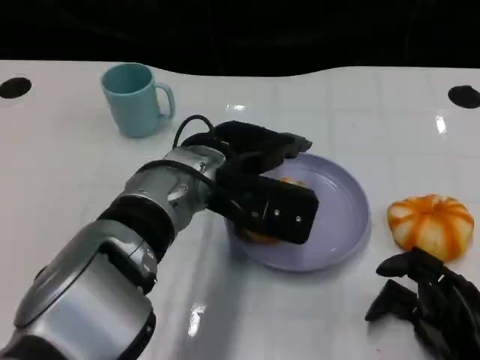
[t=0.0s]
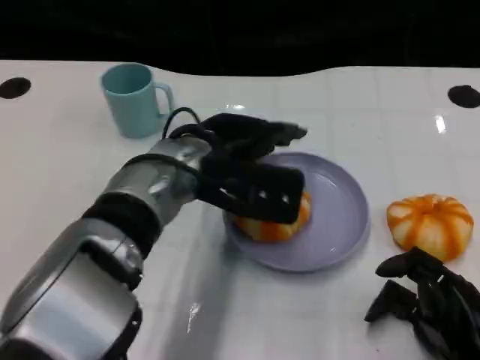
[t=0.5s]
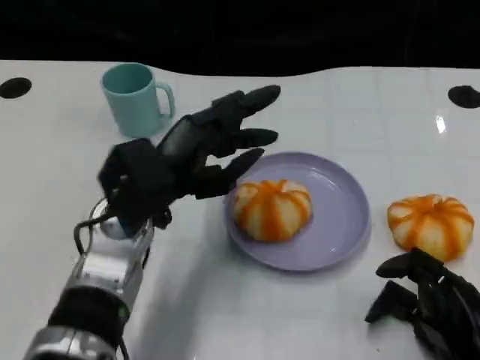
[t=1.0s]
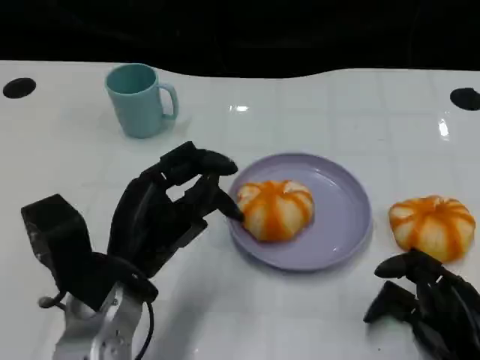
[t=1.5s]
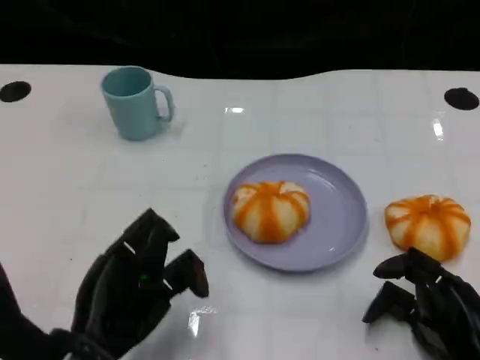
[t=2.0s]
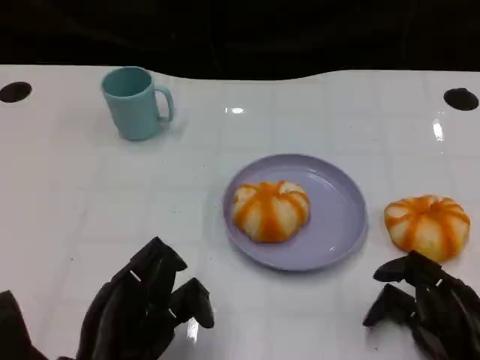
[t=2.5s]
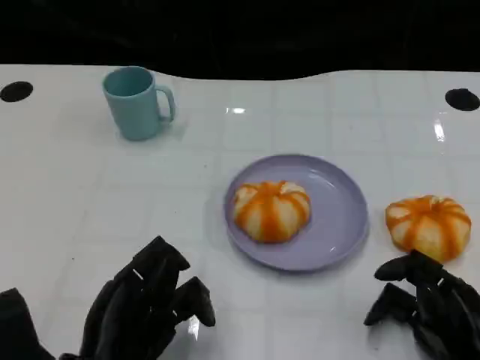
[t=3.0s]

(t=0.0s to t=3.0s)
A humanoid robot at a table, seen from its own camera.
Task of the whole recording: Grasp the bread from the table and place it into the plate.
t=0.0s - t=1.5s: The left hand travels to the left and backward by approximately 15 cm.
t=1.5s - t=3.0s: The left hand is displaced backward by about 5 cm.

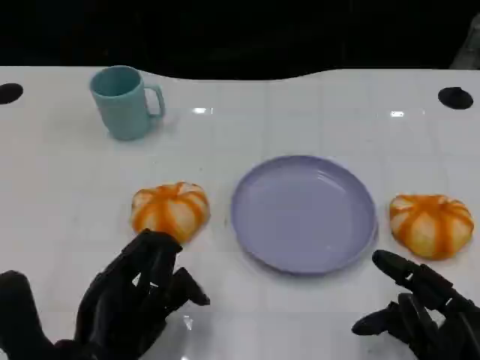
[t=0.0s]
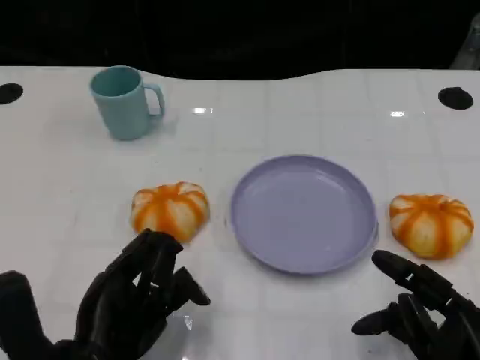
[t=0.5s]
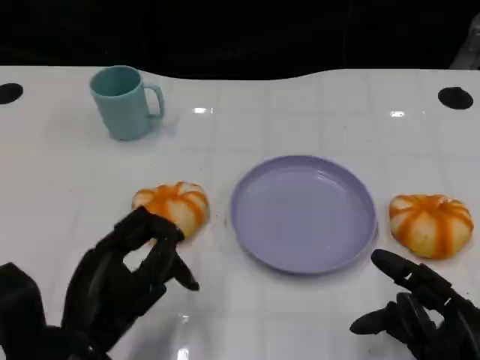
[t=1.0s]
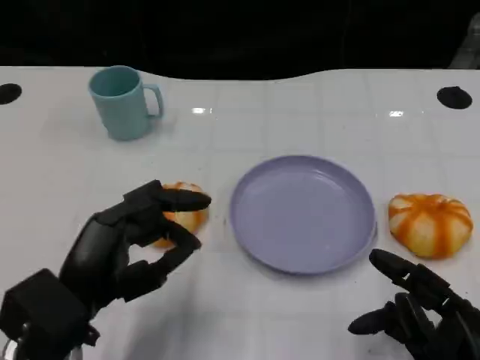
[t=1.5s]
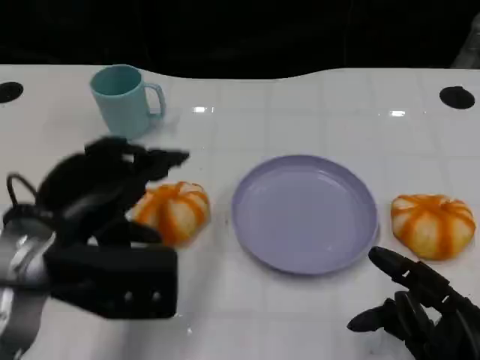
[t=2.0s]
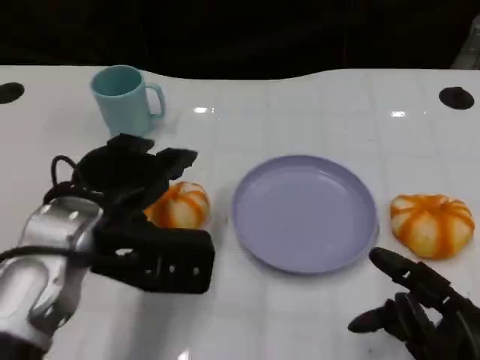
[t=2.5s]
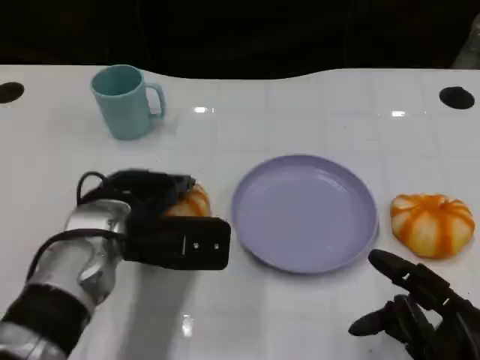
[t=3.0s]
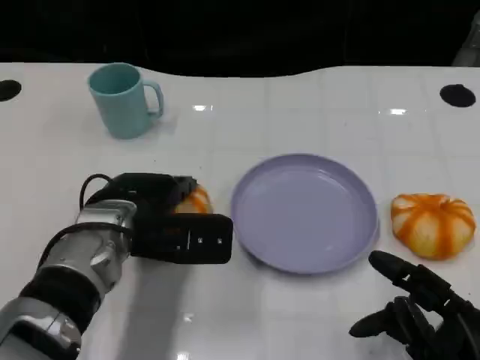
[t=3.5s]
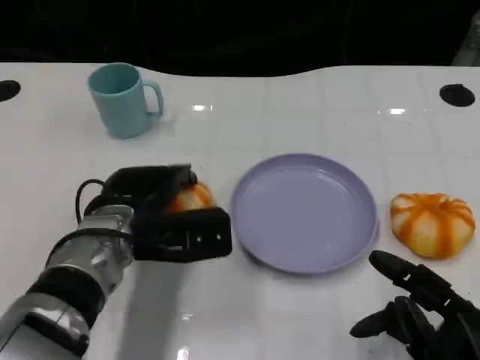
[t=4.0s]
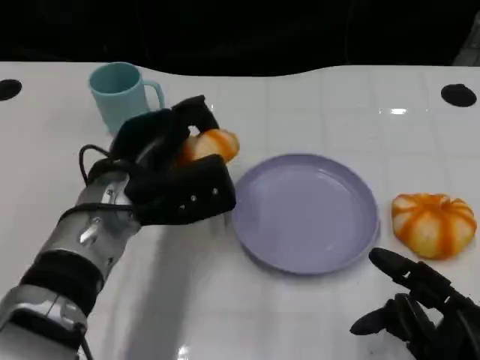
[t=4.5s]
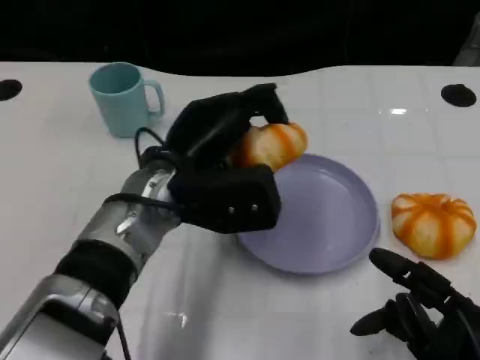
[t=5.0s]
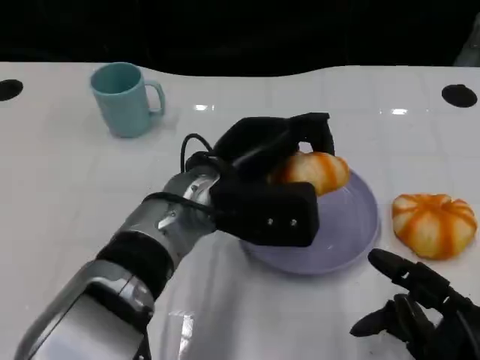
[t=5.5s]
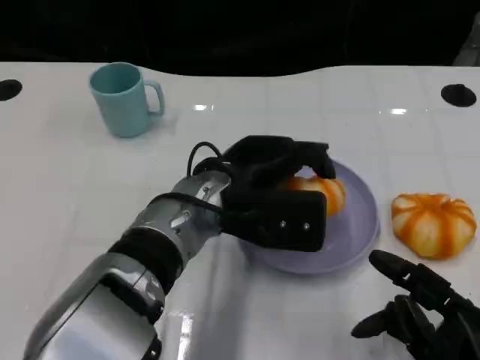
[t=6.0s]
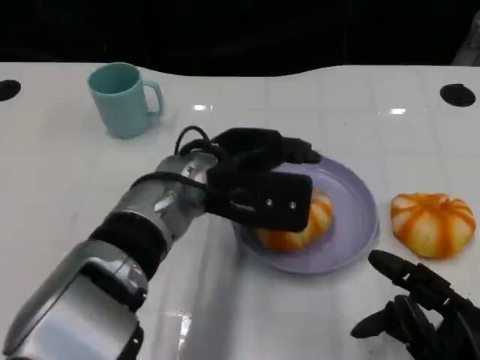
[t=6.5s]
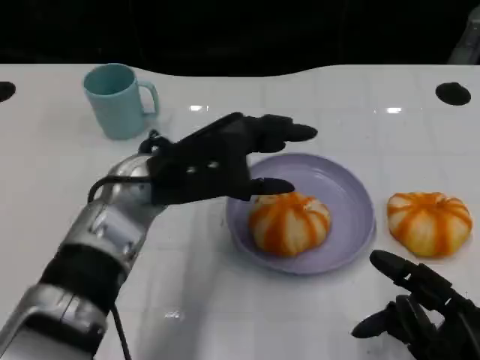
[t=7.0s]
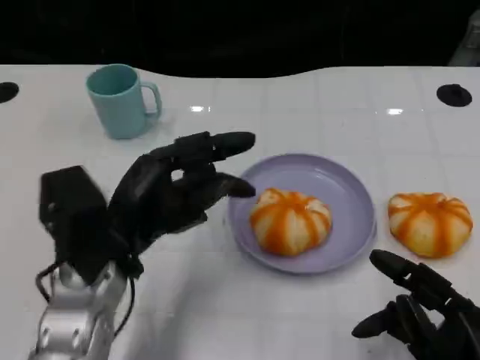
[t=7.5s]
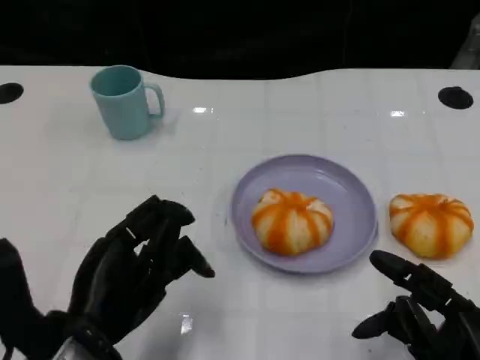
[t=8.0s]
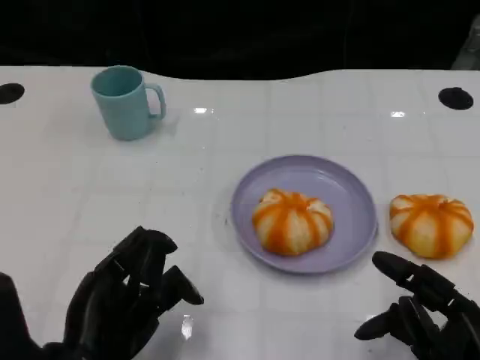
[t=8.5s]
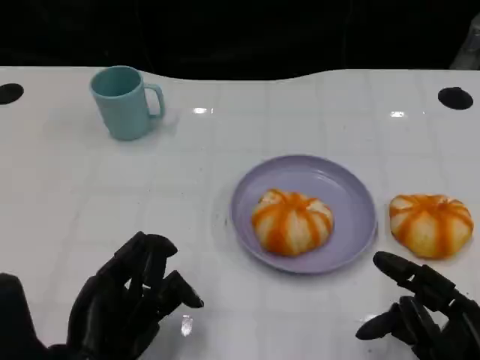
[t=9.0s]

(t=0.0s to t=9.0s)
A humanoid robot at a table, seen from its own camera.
Task of the whole recording: Grasp the bread from the table and place it into the plate.
t=0.0s - t=2.0s: The left hand moves upward and forward, about 10 cm.
t=2.0s - t=4.5s: The left hand travels forward and to the right by approximately 10 cm.
t=4.5s - t=7.0s: The left hand goes to the right and returns, about 10 cm each way.
t=7.0s - t=9.0s: The left hand shifts roughly 20 cm backward, downward and to the left.

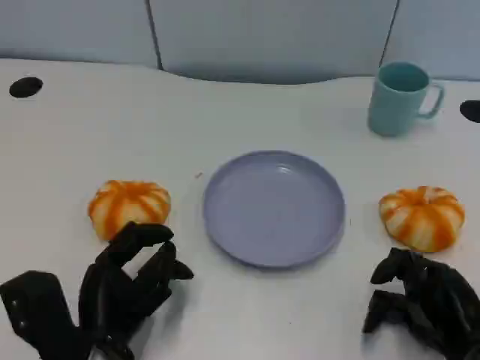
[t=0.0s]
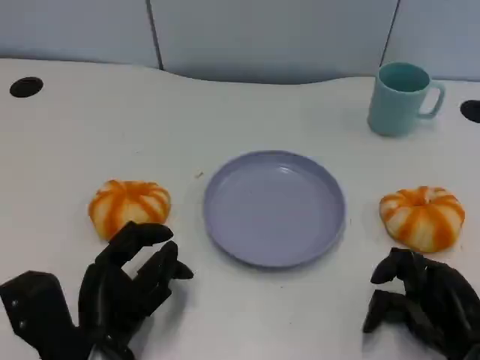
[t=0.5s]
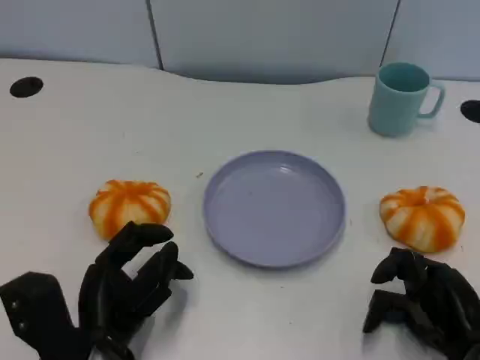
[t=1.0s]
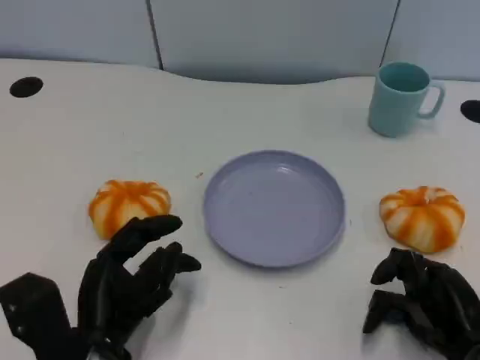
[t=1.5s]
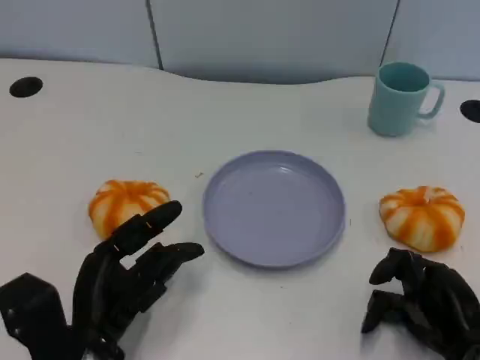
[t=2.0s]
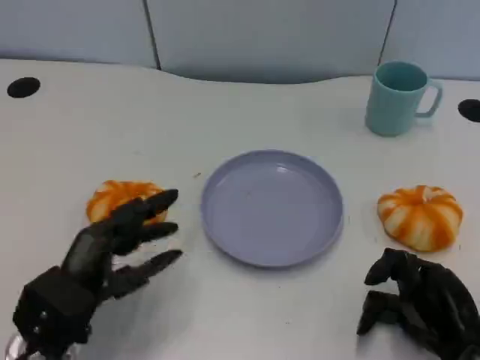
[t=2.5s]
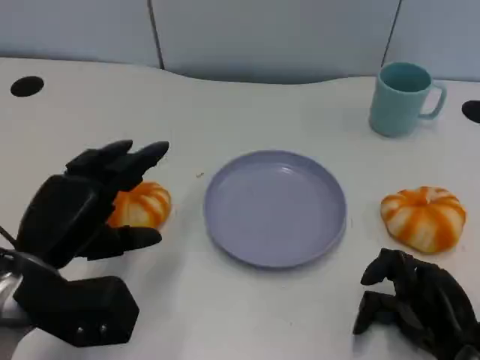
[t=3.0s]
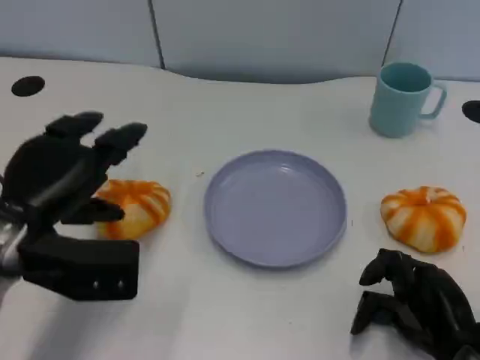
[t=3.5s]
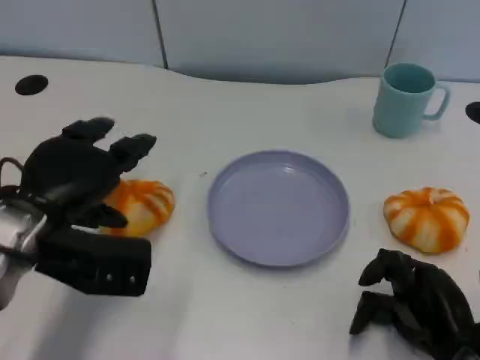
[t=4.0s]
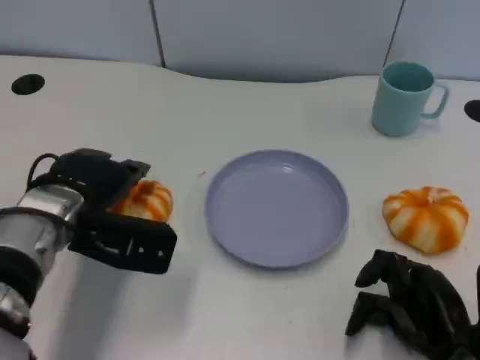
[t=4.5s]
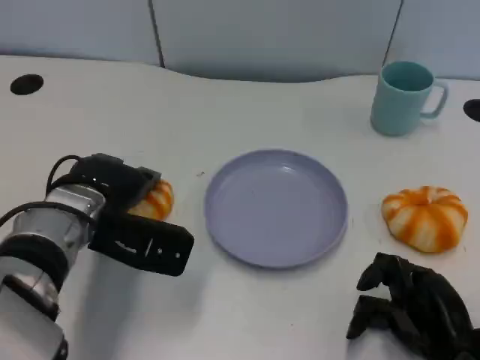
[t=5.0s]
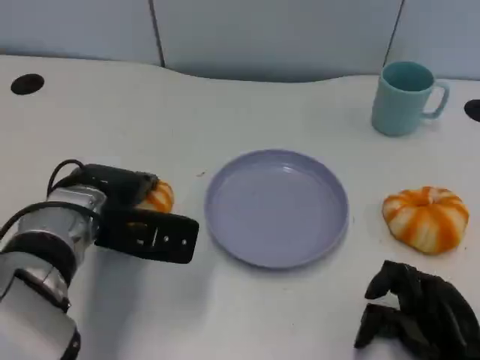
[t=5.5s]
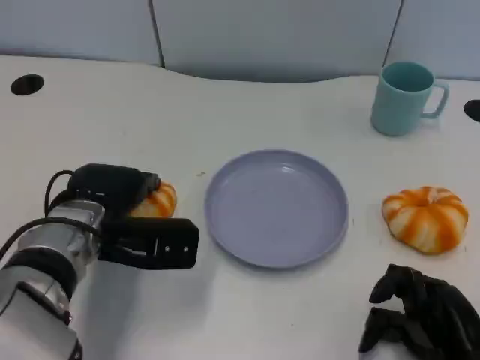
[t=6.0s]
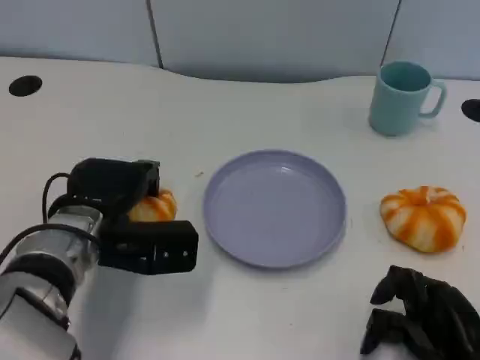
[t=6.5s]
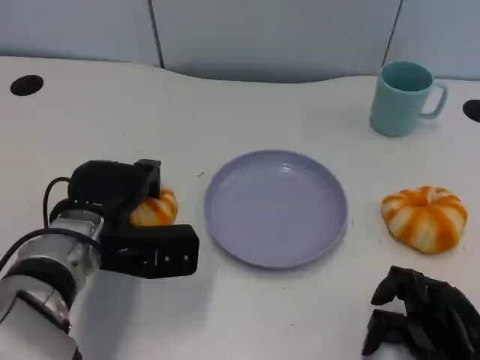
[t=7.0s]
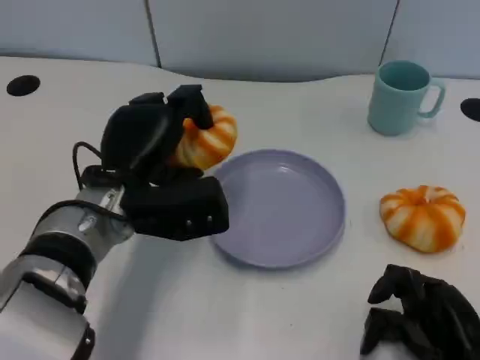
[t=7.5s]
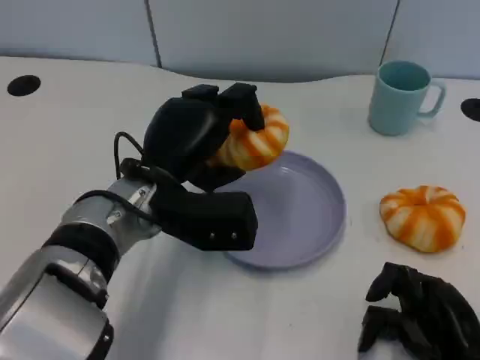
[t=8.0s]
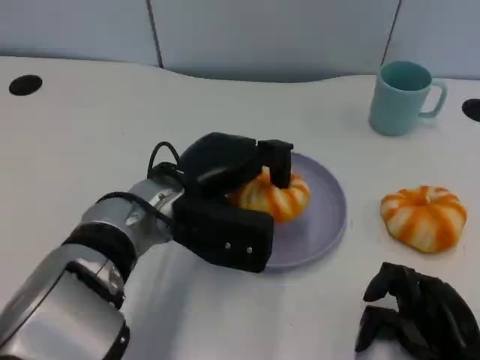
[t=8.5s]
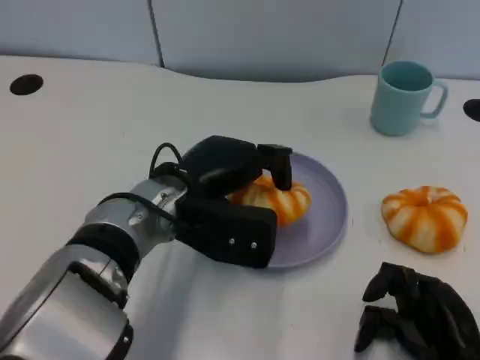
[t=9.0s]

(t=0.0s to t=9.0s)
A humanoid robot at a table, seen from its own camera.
Task of the whole recording: Grasp the bread from the table and place it into the plate.
t=0.0s - t=2.0s: There are only small adjustments of the hands.
t=2.0s - t=4.5s: The left hand travels forward and upward by some 15 cm.
t=4.5s - t=7.0s: The hands move only a little.
t=7.0s - t=9.0s: The left hand is displaced to the right by roughly 10 cm.

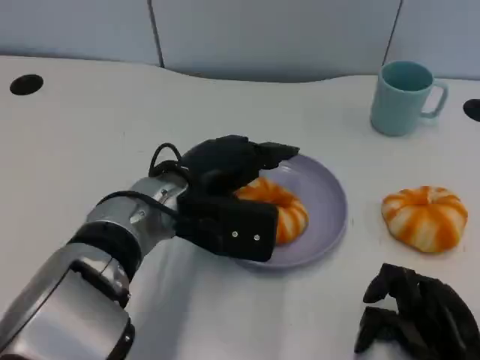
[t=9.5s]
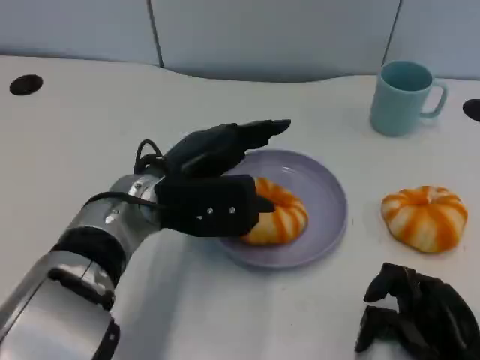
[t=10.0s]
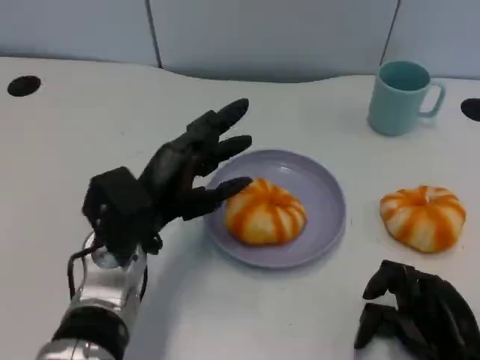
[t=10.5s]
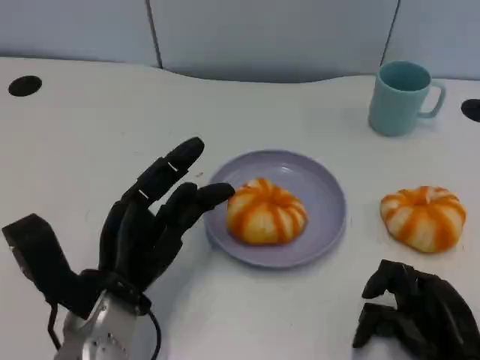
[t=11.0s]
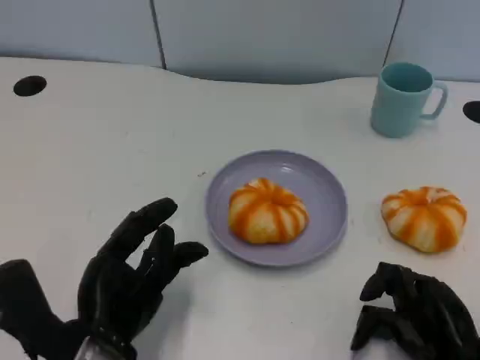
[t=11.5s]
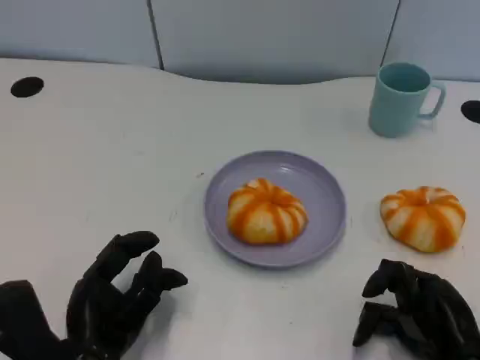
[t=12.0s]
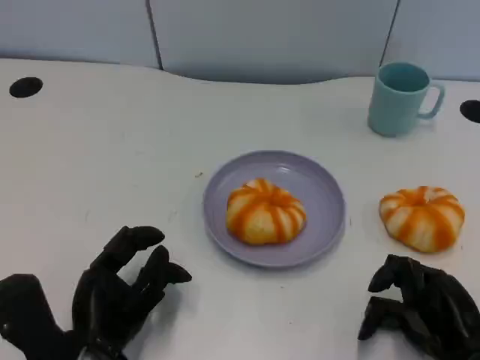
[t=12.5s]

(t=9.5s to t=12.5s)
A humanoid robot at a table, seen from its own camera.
Task of the whole recording: Grasp the bread from the table and place it into the plate.
t=9.5s - t=11.0s: The left hand is displaced backward, to the left and downward by approximately 10 cm.
t=11.0s - t=12.5s: The left hand shifts by roughly 5 cm.

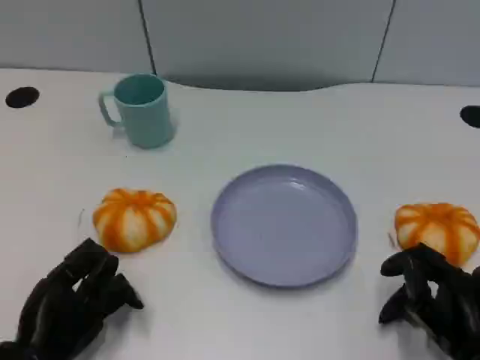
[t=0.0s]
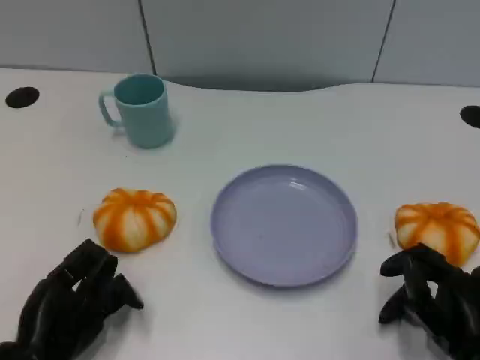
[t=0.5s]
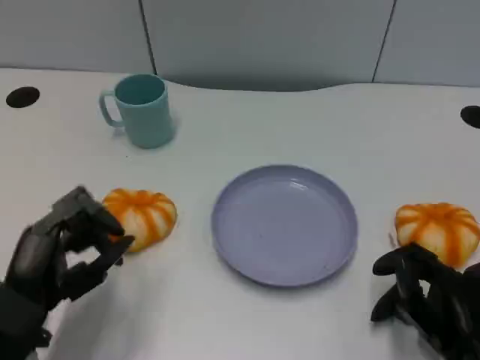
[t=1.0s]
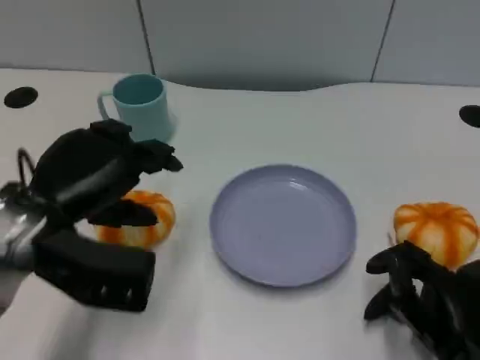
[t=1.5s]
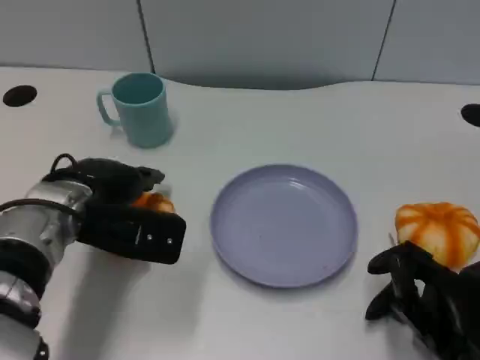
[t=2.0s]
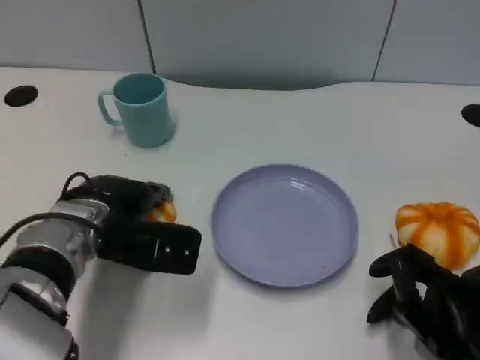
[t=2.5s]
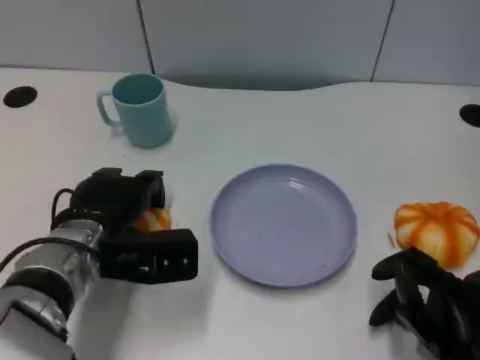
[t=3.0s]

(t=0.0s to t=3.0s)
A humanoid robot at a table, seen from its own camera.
Task of the whole recording: Grasp the bread from the table and place it into the plate.
t=0.0s - t=1.5s: The left hand goes approximately 15 cm upward and forward.
t=1.5s - t=3.0s: The left hand is displaced downward by some 10 cm.
